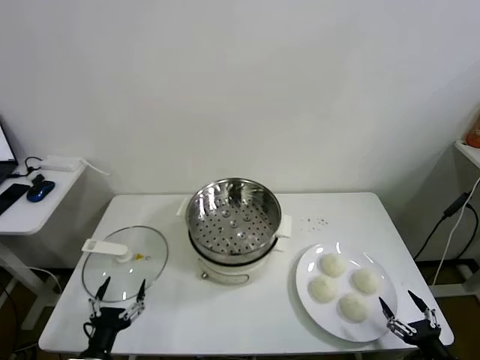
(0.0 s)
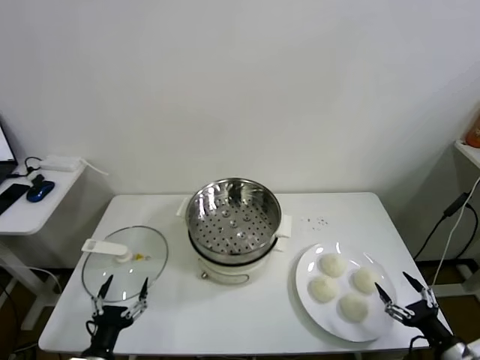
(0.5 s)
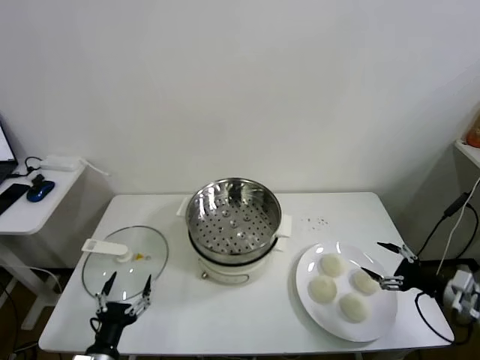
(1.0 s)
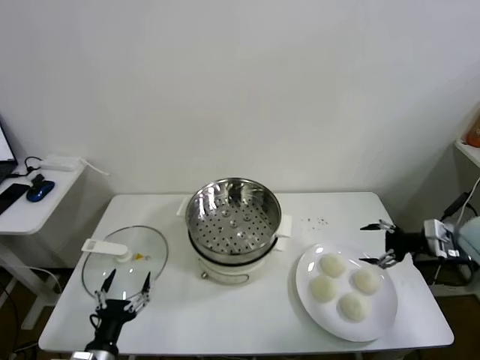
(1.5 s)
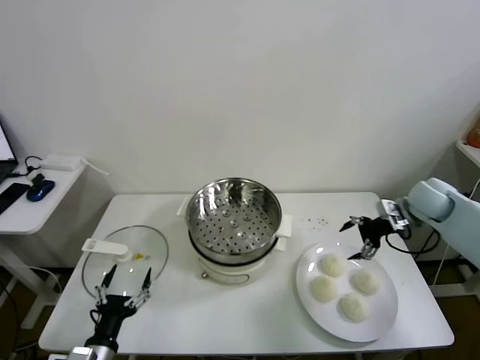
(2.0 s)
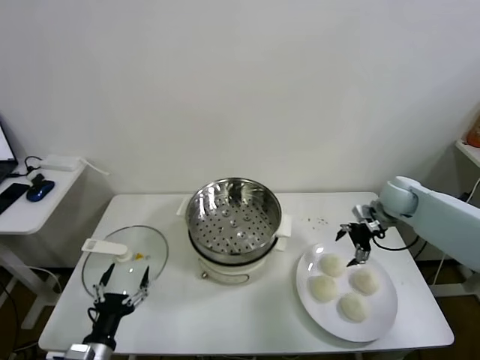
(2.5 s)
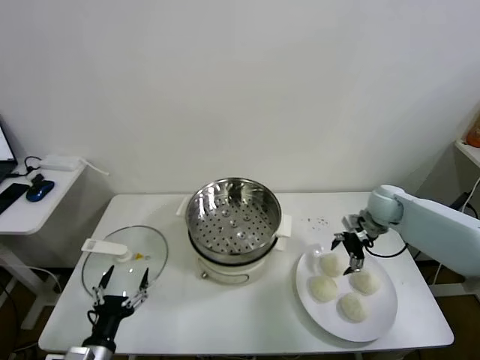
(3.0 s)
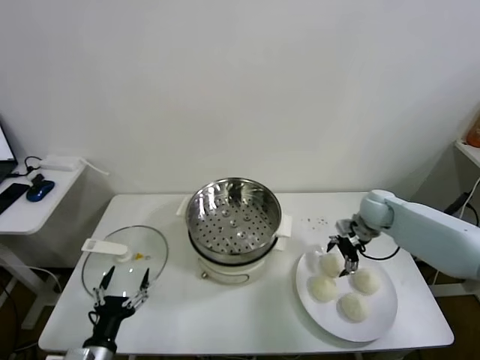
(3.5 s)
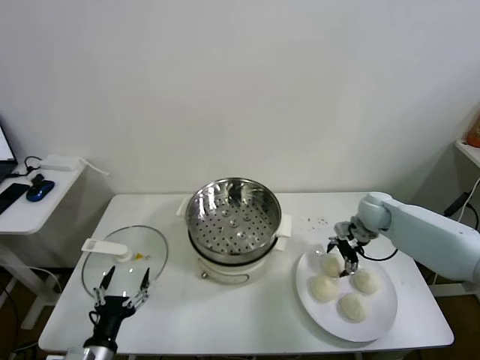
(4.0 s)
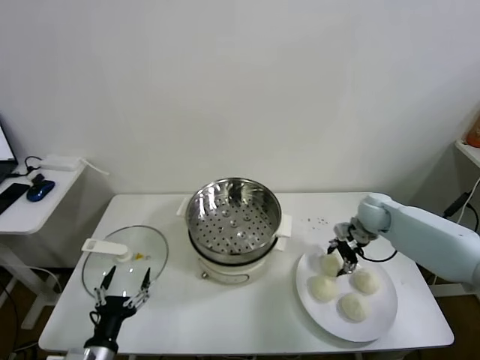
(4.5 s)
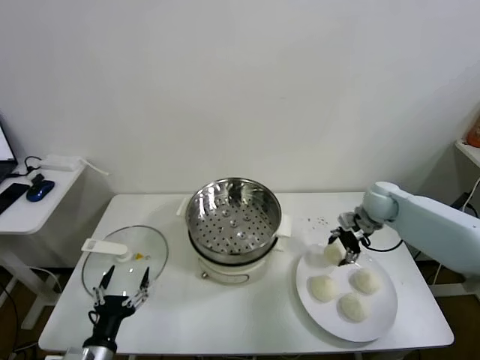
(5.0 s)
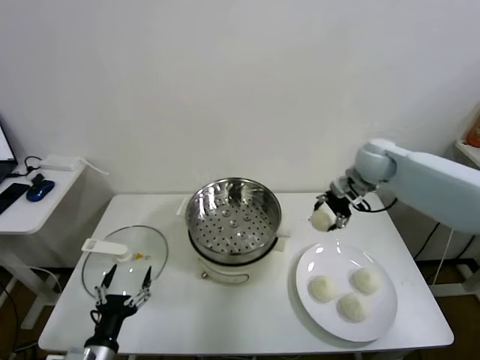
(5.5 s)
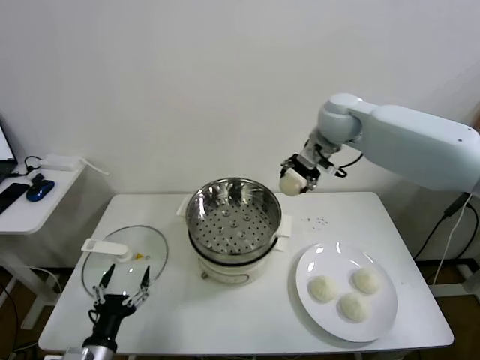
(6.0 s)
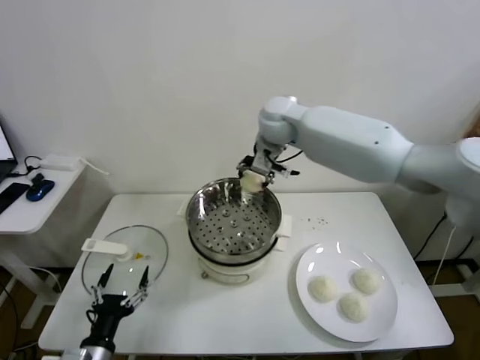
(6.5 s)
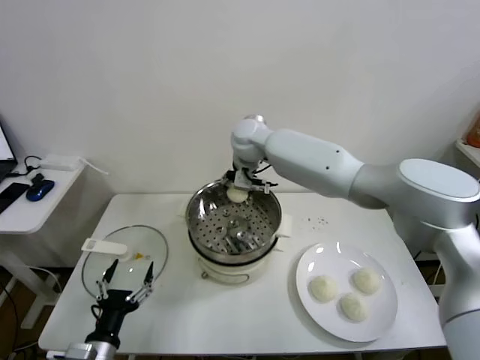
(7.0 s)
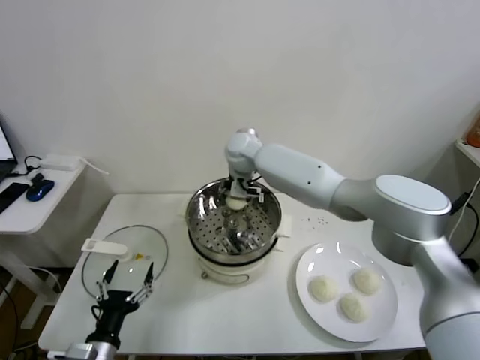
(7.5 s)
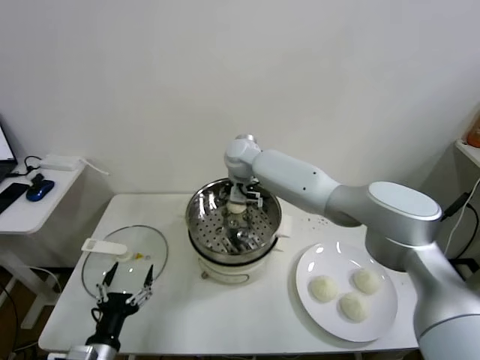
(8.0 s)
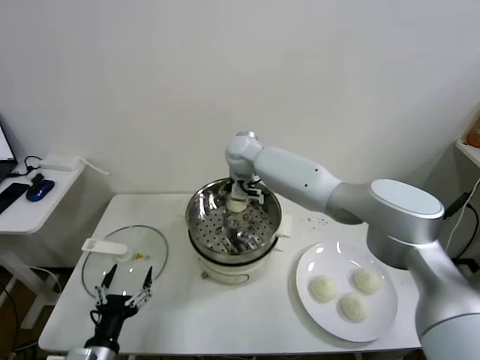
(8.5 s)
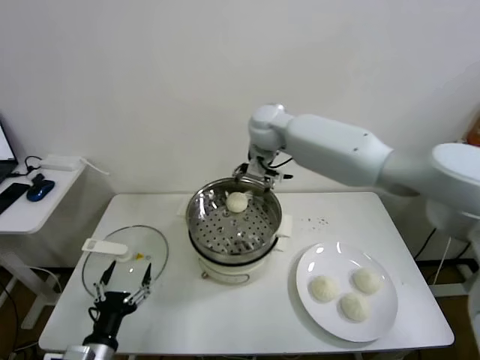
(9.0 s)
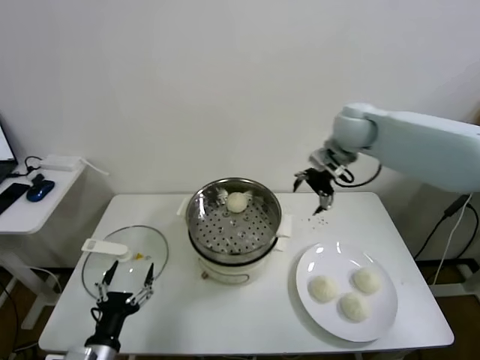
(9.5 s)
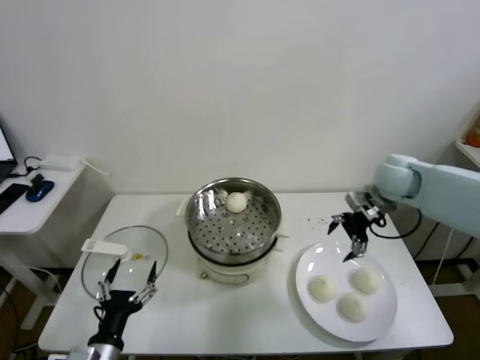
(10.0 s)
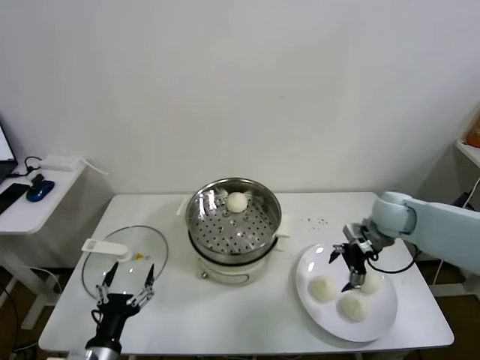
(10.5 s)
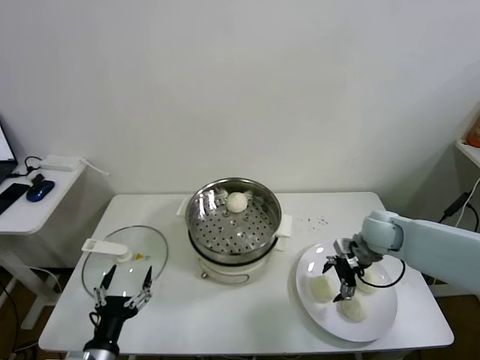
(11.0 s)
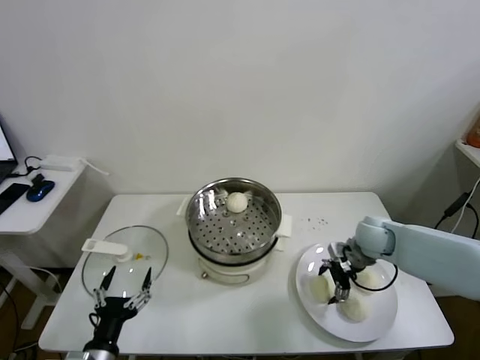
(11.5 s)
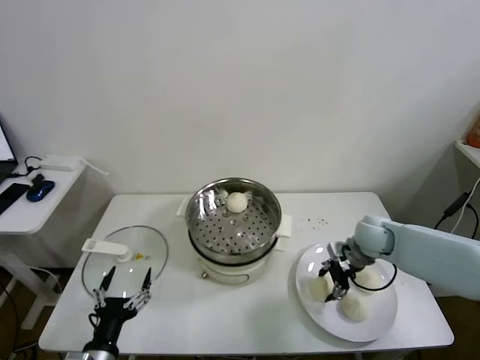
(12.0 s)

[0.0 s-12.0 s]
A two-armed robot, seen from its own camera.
Task of the whole recording: take steamed baozi put them in steamer.
Step, 0.0 to 4.0 s: Grasp the baozi in the plate with right gripper.
Step, 4.5 to 8.5 s: Place the baozi on the steamer with right gripper.
Step, 9.0 to 11.5 s: Grasp the baozi in the plate with right gripper.
2.0 to 4.0 s: The right gripper goes approximately 10 cm downward and to the left.
4.0 to 6.0 s: The right gripper moves upward and to the left, approximately 35 cm, and closes.
6.0 to 8.0 s: The right gripper shifts approximately 20 cm to the left and downward, and opens its fingers.
8.0 to 10.0 s: The right gripper shifts some 35 cm to the right, and opens up.
10.0 to 12.0 s: The right gripper goes approximately 10 cm downward, and closes.

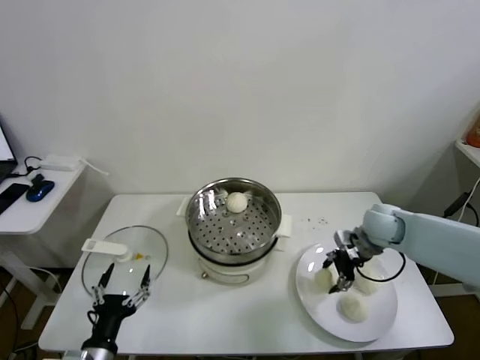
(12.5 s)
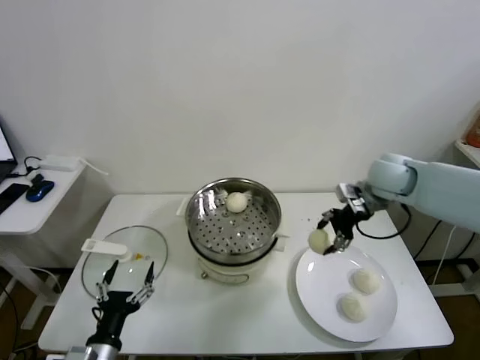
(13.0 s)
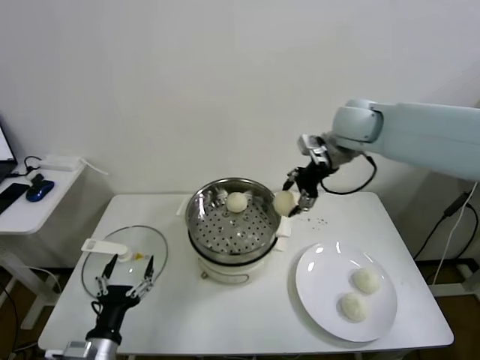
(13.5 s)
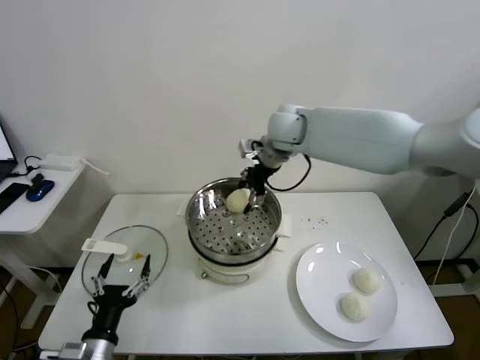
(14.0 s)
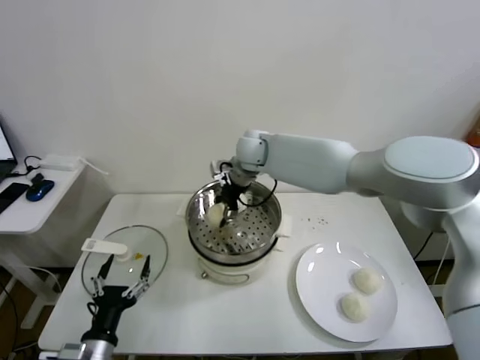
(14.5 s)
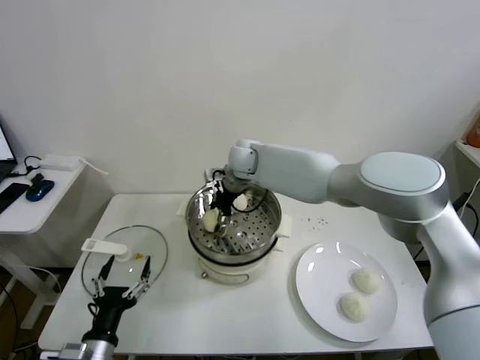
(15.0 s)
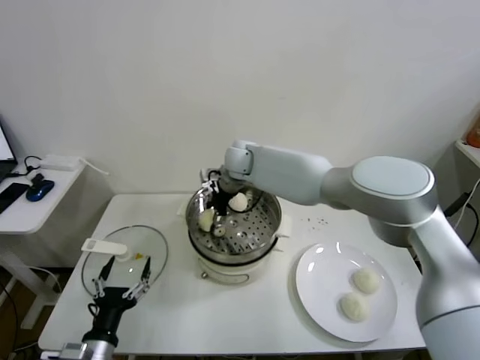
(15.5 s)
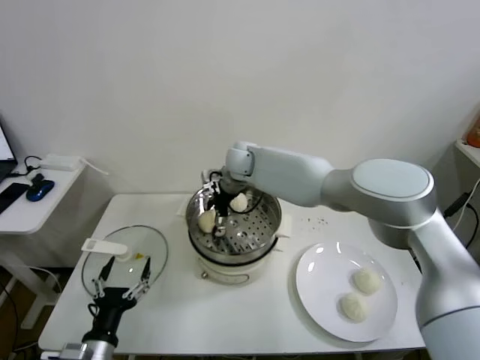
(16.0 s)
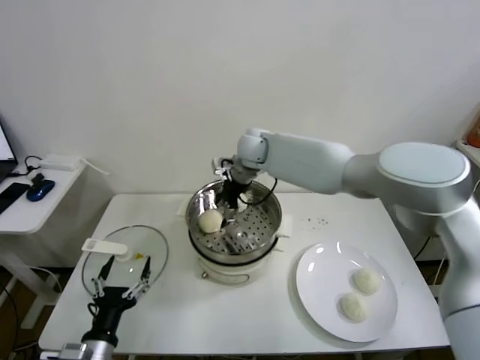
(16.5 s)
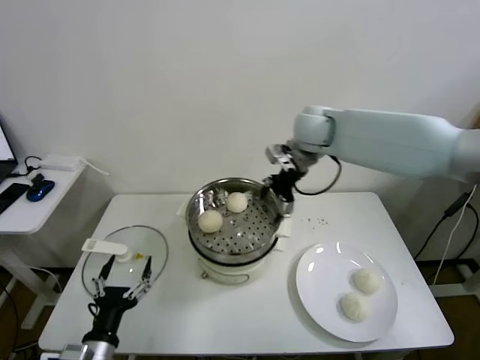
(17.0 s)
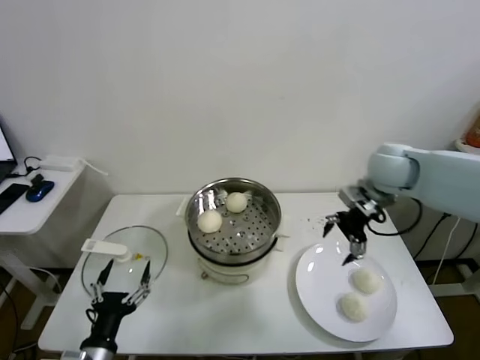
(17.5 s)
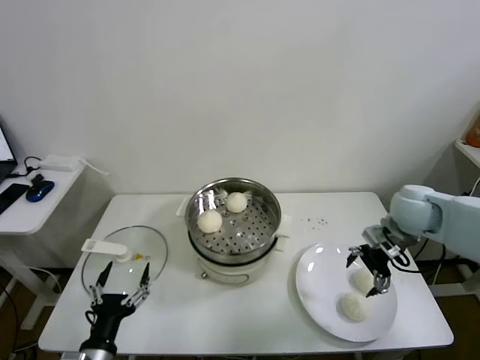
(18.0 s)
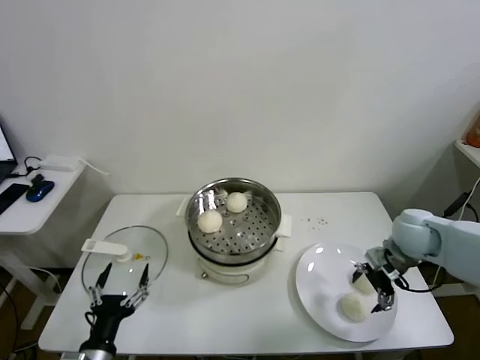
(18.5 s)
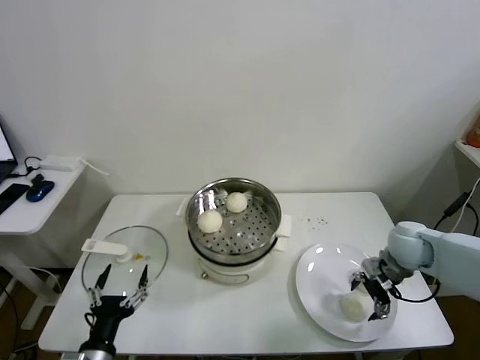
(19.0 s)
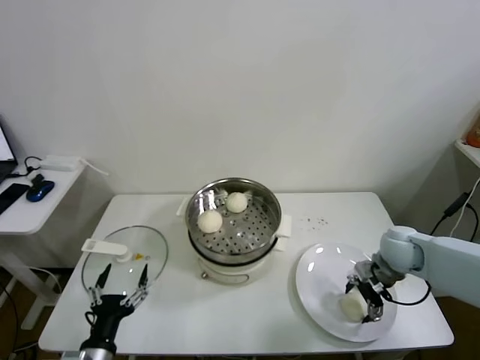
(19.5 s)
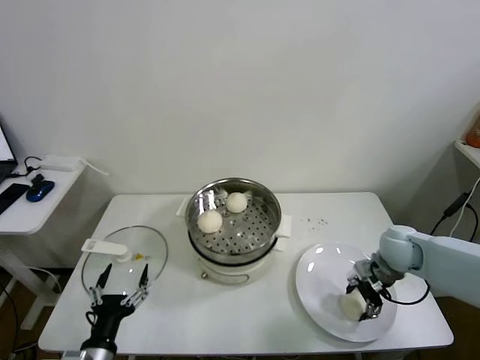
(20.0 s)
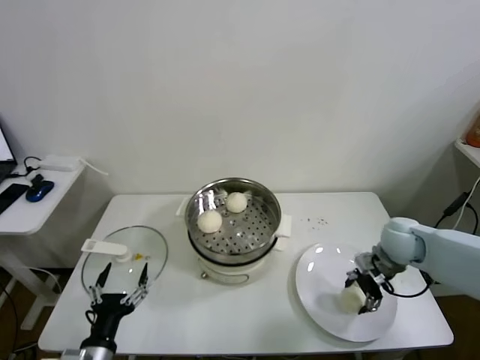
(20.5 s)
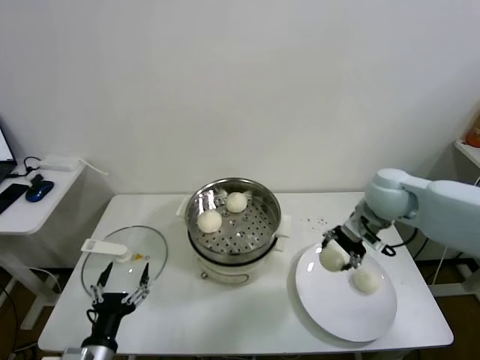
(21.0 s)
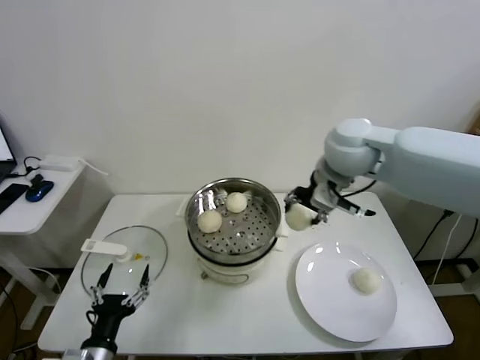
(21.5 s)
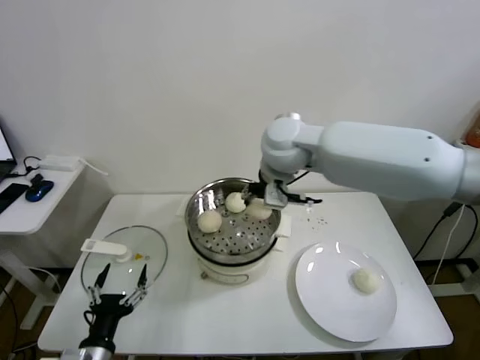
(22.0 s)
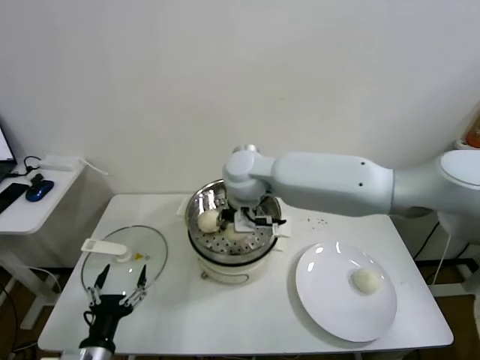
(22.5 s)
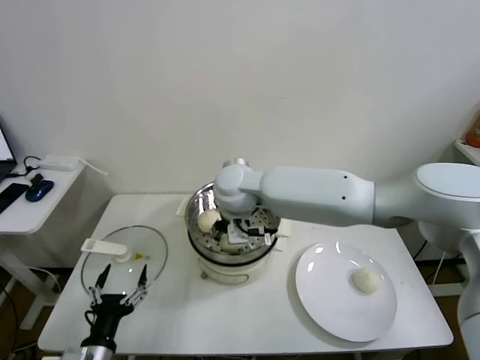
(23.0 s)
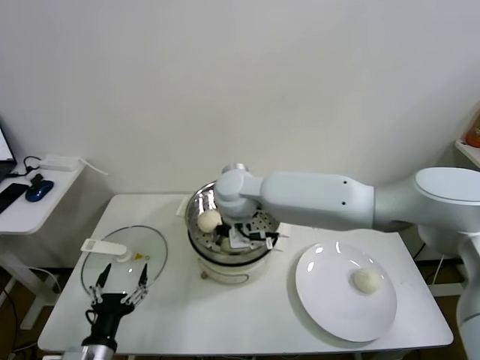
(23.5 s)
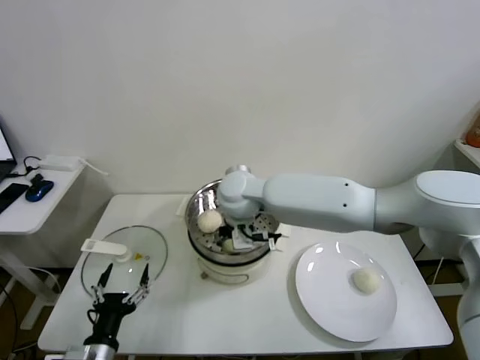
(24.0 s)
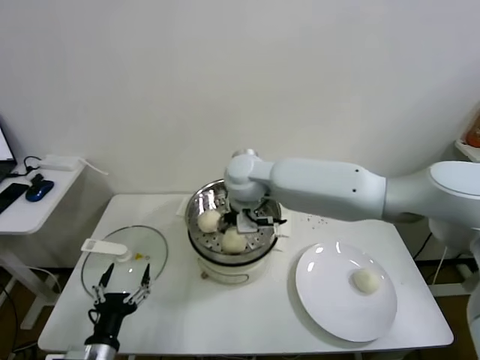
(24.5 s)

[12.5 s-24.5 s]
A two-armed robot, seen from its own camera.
Task of the whole recording: take steamed baozi put them in steamer.
Step, 12.5 to 16.0 s: Place the baozi on the steamer with right gripper.
Step, 16.5 to 20.0 s: Grasp the baozi in the plate with right gripper.
Step, 20.5 to 24.0 s: Place the baozi on the steamer with right gripper.
12.5 to 14.5 s: The right gripper moves to the left, approximately 30 cm.
14.5 to 16.5 s: The right gripper opens its fingers.
16.5 to 18.5 s: The right gripper heads to the right and backward, covering about 40 cm.
18.5 to 20.5 s: The right gripper closes up.
20.5 to 22.5 s: The right gripper shifts about 40 cm to the left and upward.
22.5 to 24.5 s: The right gripper opens up.

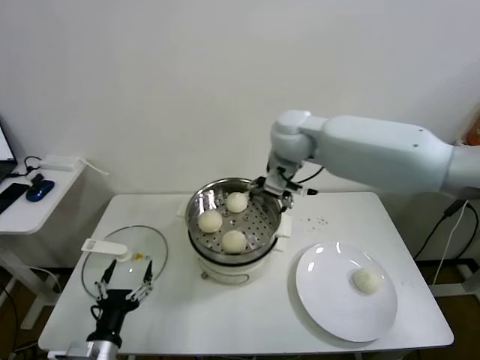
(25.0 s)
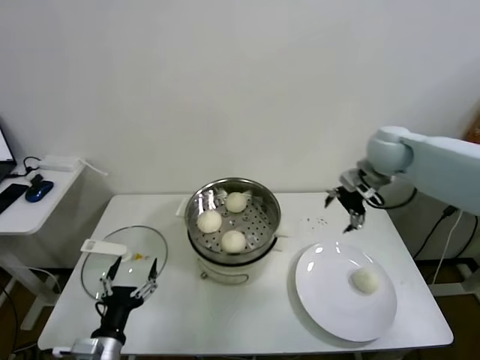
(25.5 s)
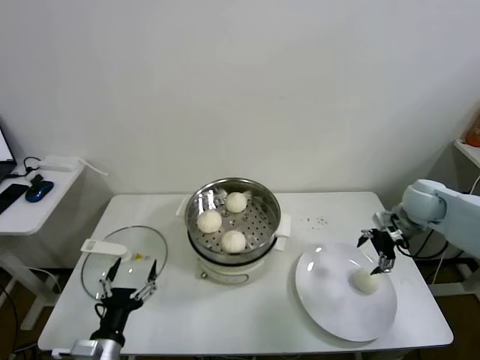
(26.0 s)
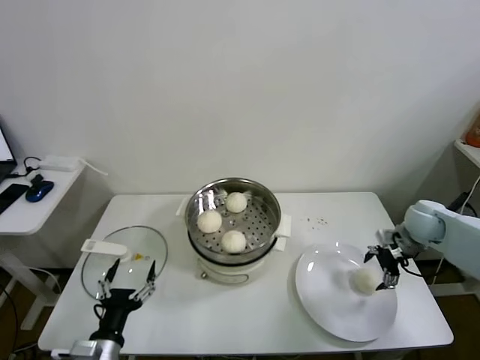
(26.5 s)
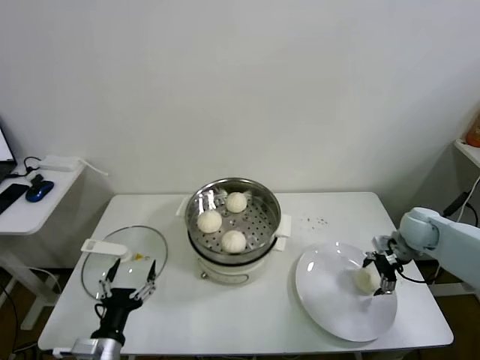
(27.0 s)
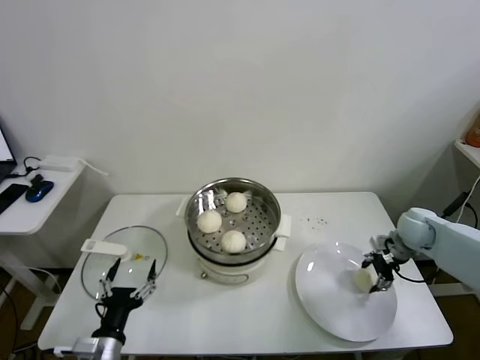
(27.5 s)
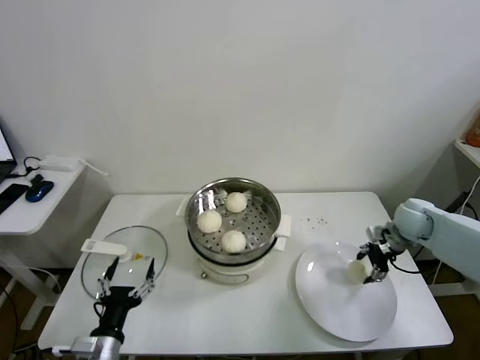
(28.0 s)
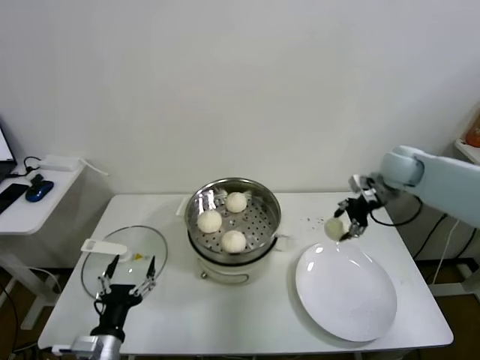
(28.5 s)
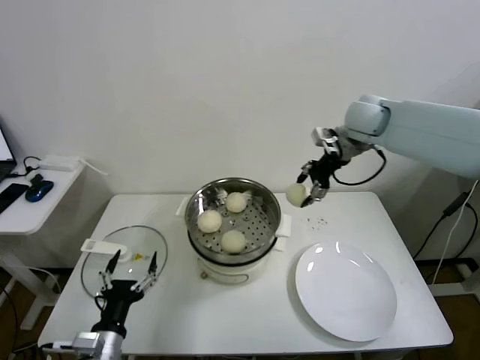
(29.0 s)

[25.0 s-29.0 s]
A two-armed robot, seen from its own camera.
Task of the whole recording: take steamed baozi put them in steamer.
Step, 25.0 to 27.5 s: Grasp the baozi in the plate with right gripper.
25.0 to 27.0 s: The right gripper travels to the right and downward by approximately 40 cm.
27.0 to 29.0 s: The right gripper moves upward, to the left and forward, approximately 30 cm, and closes its fingers.
